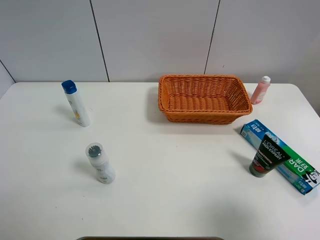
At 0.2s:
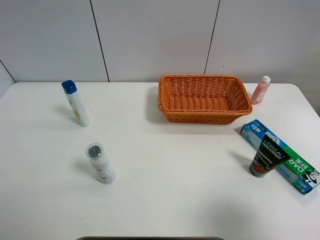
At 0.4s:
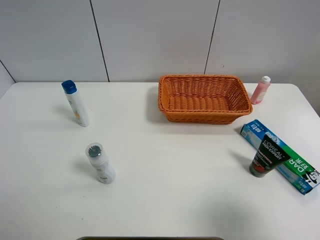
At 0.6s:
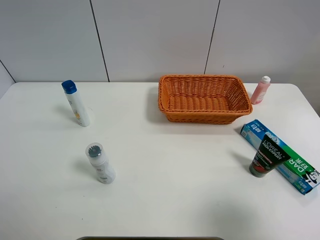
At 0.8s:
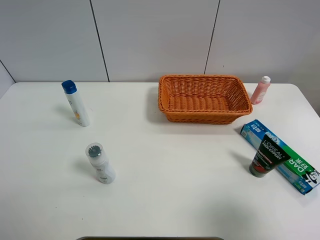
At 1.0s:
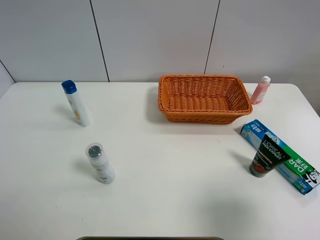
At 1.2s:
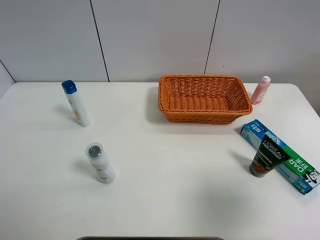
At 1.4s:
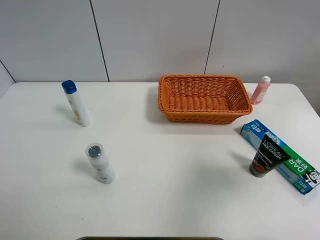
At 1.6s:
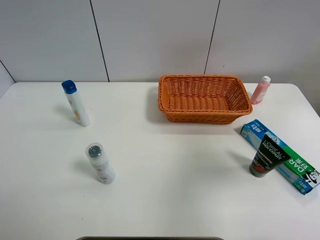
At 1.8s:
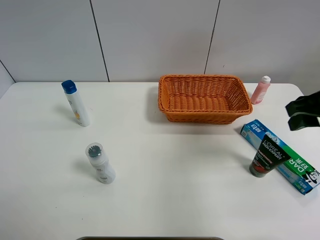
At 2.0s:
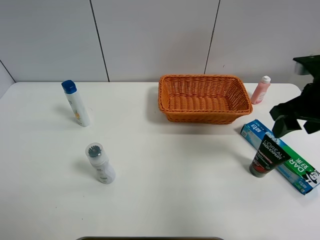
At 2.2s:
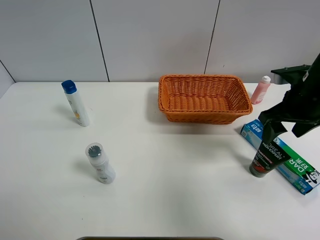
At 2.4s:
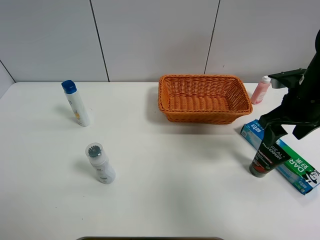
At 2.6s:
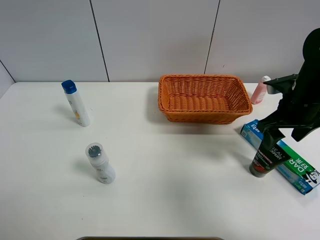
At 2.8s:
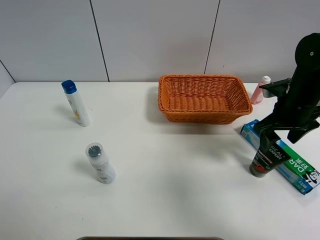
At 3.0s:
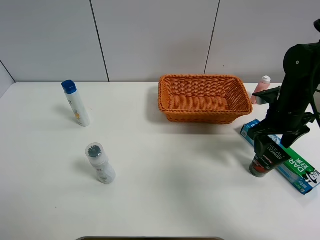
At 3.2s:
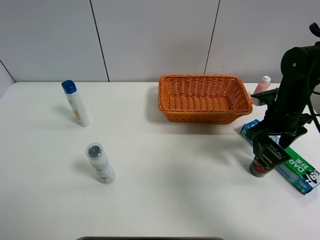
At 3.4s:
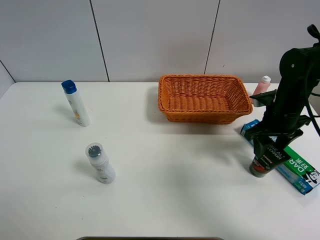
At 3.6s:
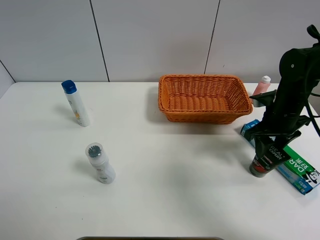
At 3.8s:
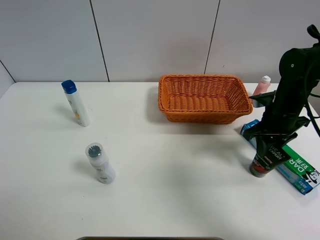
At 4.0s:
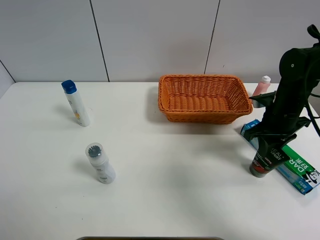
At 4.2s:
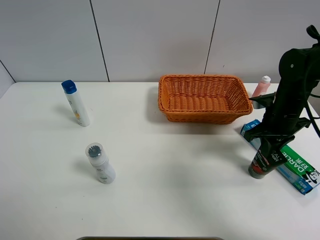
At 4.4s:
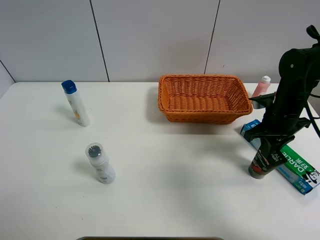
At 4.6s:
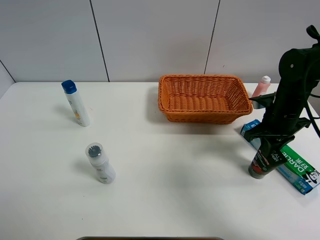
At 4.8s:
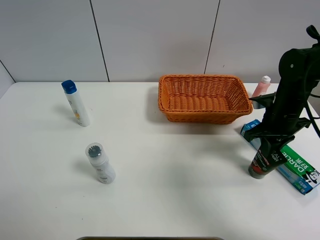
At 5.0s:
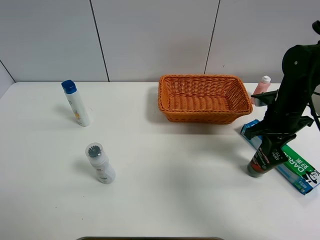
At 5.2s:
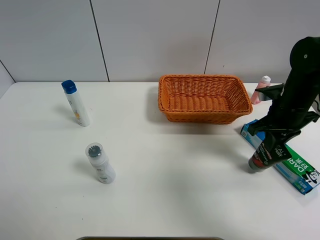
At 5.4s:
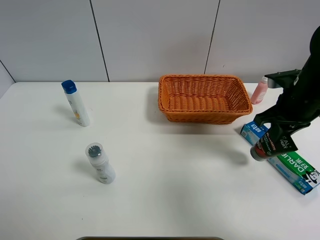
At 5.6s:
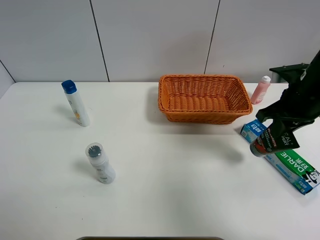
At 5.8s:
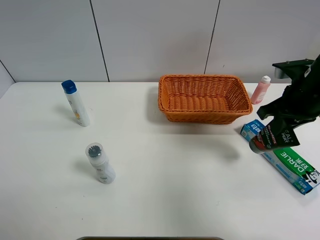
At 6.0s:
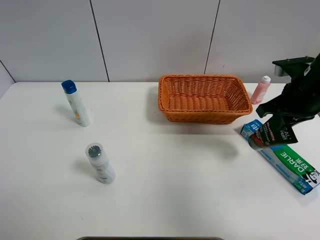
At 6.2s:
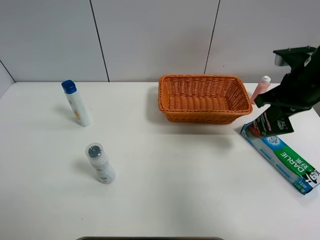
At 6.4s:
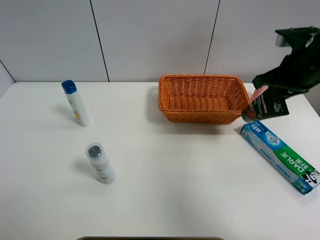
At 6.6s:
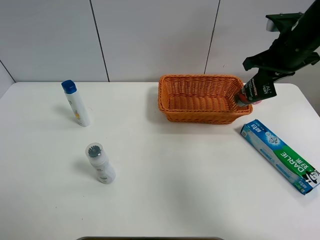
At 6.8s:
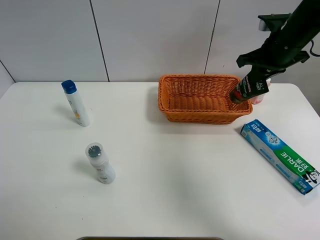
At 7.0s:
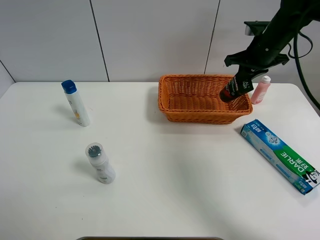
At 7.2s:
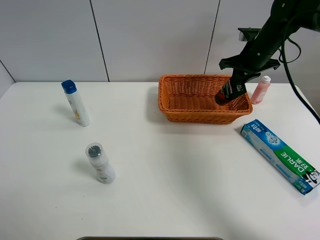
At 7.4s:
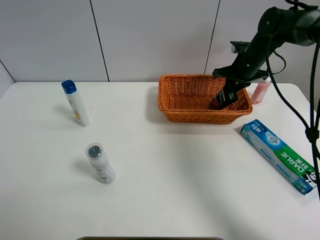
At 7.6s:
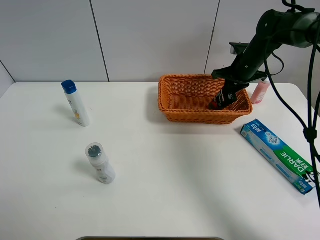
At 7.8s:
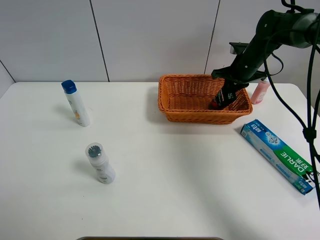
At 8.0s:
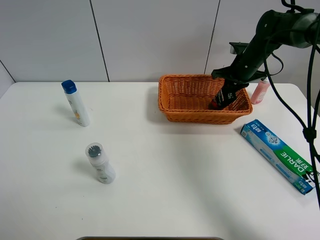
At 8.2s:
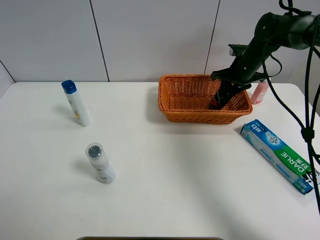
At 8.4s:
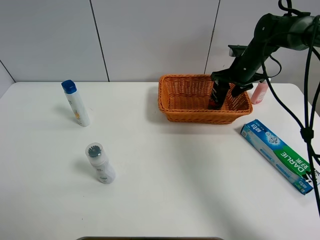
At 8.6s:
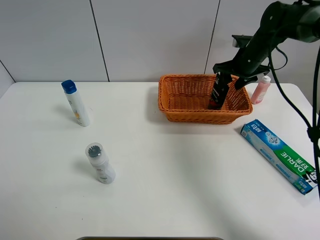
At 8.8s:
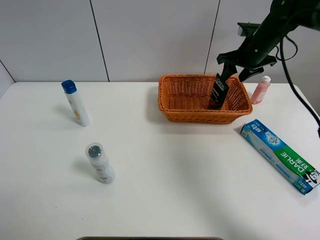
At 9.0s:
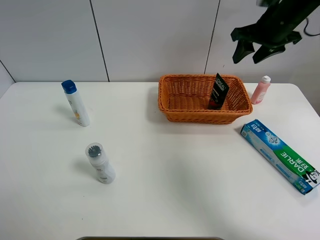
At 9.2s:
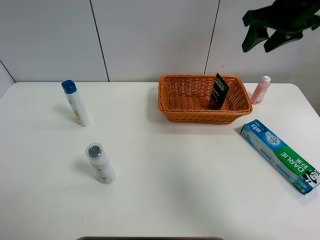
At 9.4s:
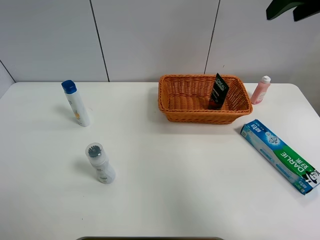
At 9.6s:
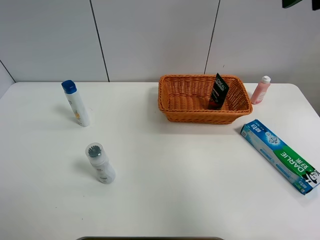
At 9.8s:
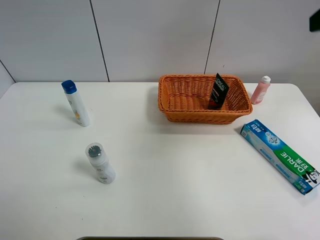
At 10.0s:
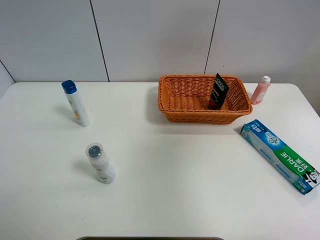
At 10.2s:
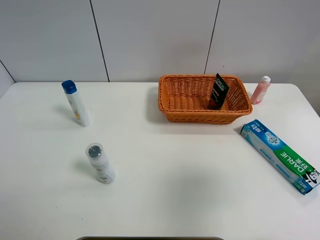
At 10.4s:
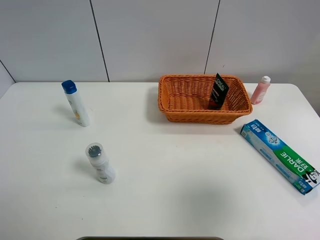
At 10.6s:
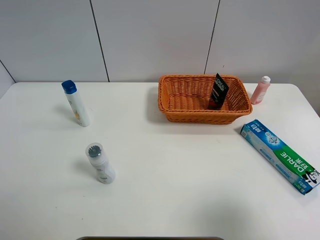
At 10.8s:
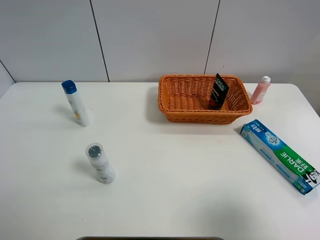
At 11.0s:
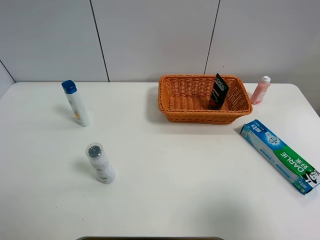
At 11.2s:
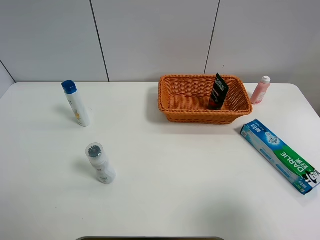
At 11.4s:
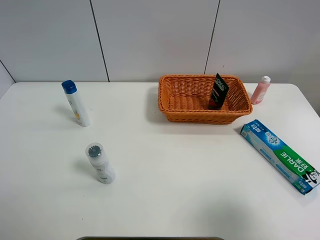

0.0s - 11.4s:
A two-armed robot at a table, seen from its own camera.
Task of the whole recording: Place the object closest to the toothpaste in the basket.
Step, 0.0s - 4.2s: Grasp the soft facial cleanser with right gripper.
Step, 4.4s - 8.8s: Place the soft facial cleanser in the basket with right gripper.
0.0s - 1.4s: The right gripper shifts roughly 10 cm forward and upward.
1.4s - 2.8s: The right gripper is displaced forward and downward by approximately 20 cm.
2.8s - 4.2s: The right gripper closes its fingers.
4.2s - 5.6s: The right gripper goes approximately 10 cm upward.
5.6s - 7.2s: The right gripper goes roughly 15 cm forward.
7.2s - 8.6s: The right gripper opens up.
8.6s - 10.0s: The right gripper heads backward and upward, covering approximately 40 cm.
10.0s - 11.4s: The right gripper heads downward and backward, covering approximately 20 cm.
